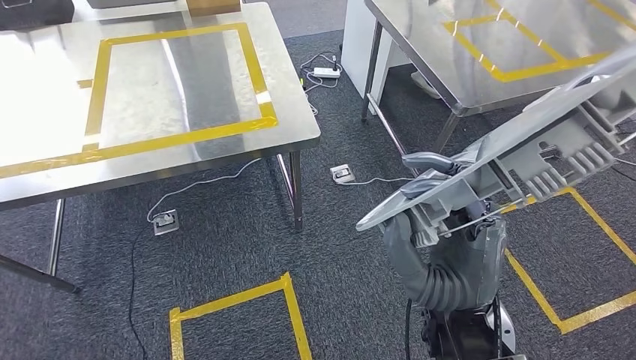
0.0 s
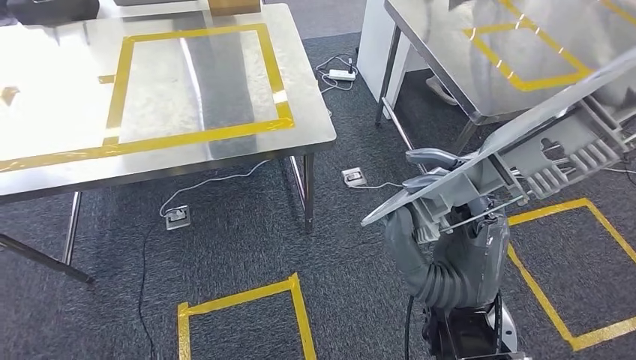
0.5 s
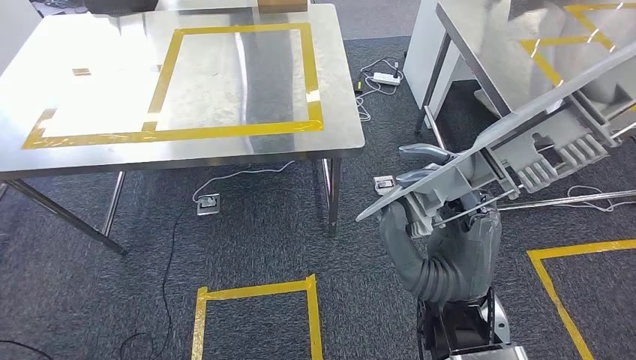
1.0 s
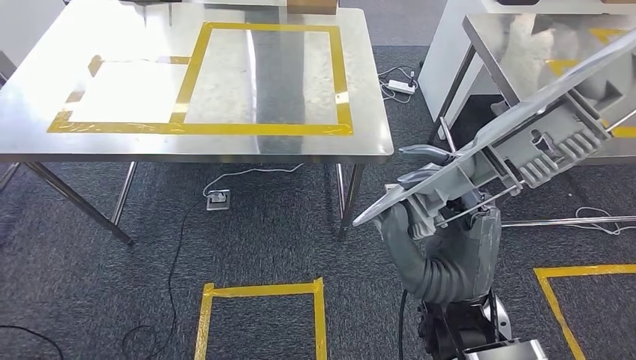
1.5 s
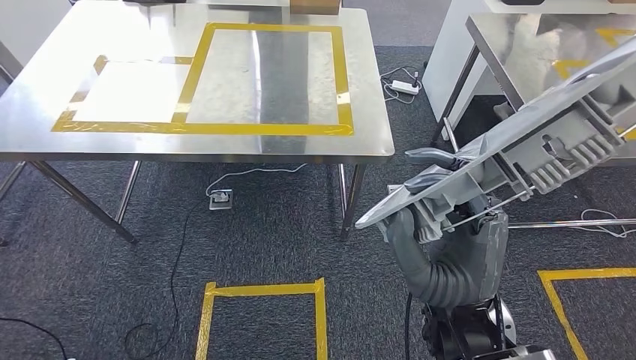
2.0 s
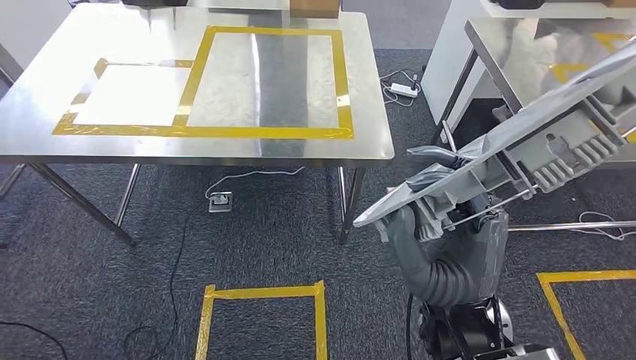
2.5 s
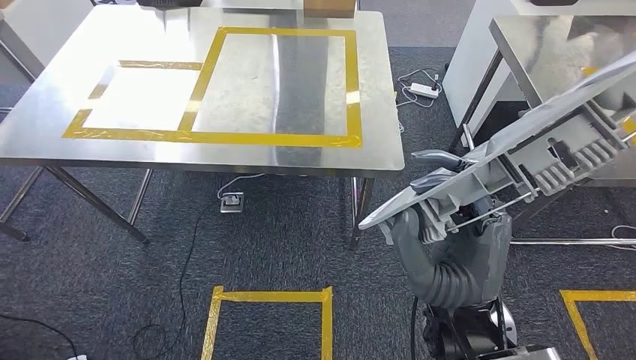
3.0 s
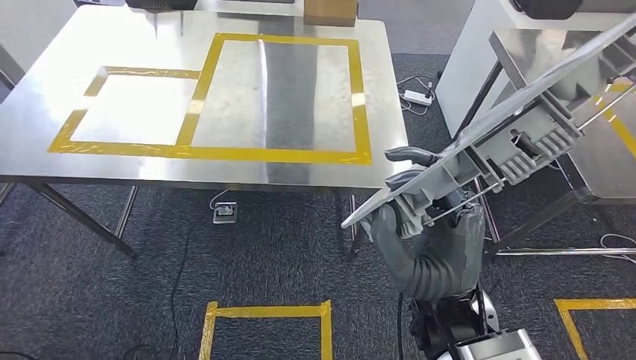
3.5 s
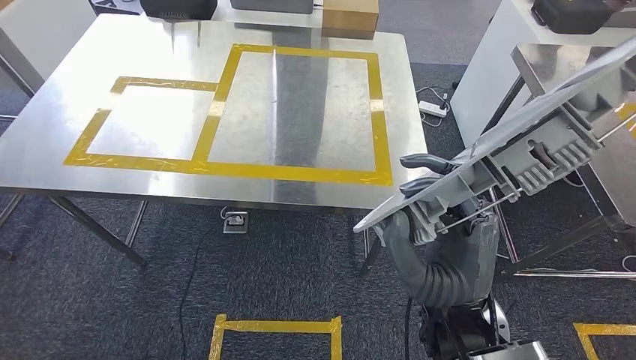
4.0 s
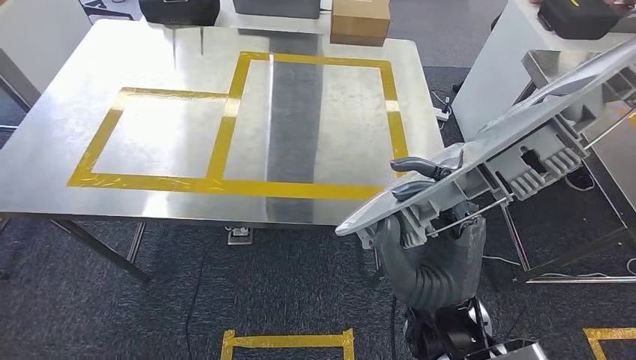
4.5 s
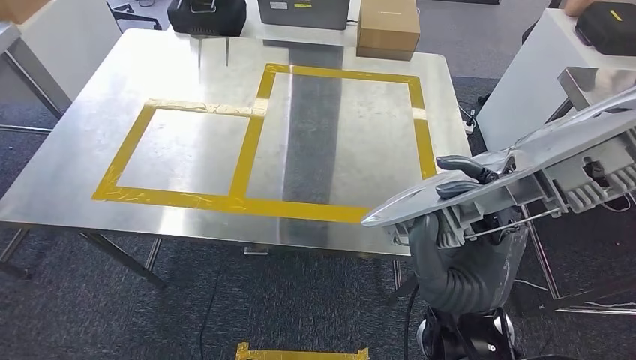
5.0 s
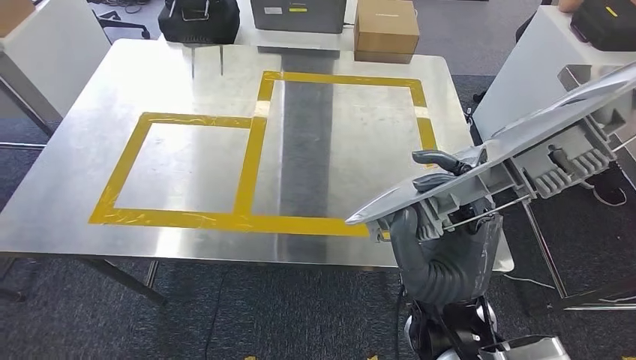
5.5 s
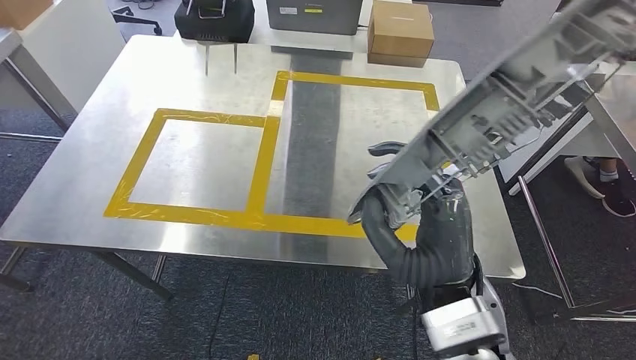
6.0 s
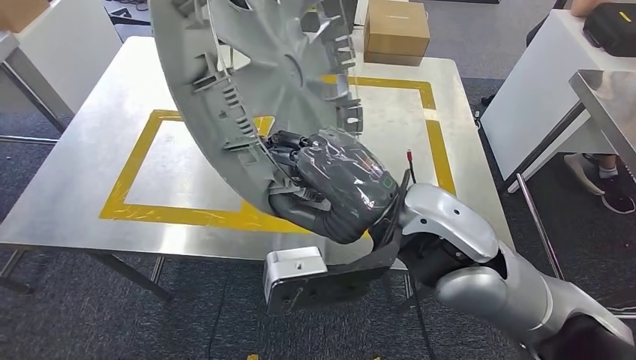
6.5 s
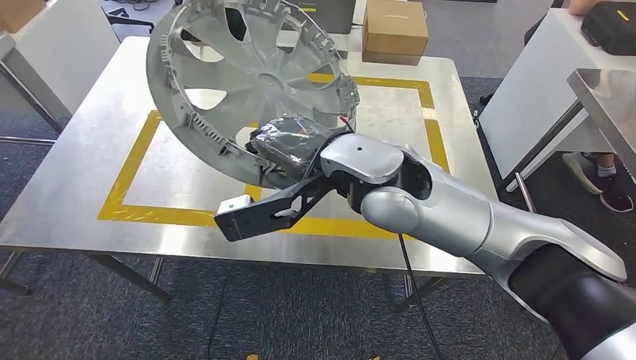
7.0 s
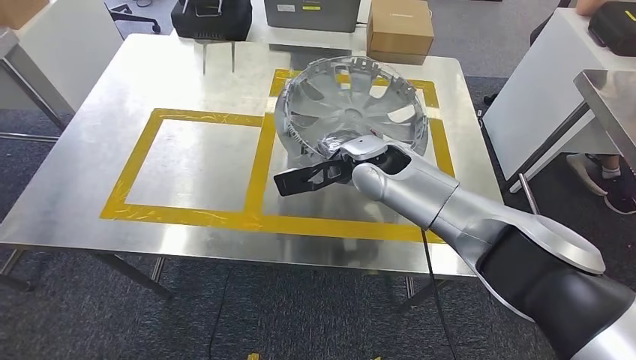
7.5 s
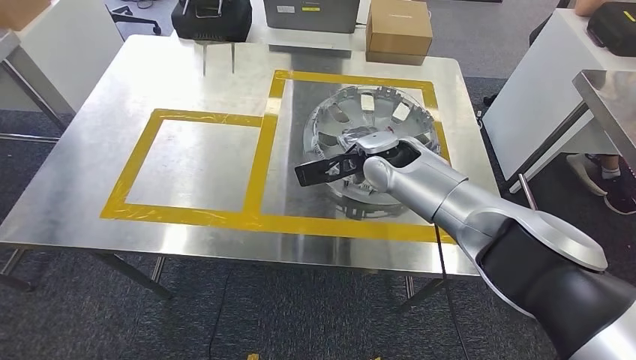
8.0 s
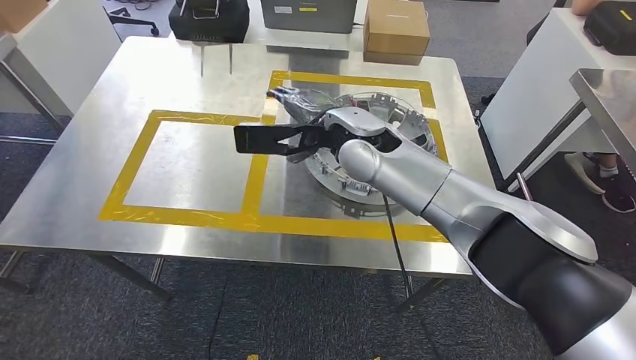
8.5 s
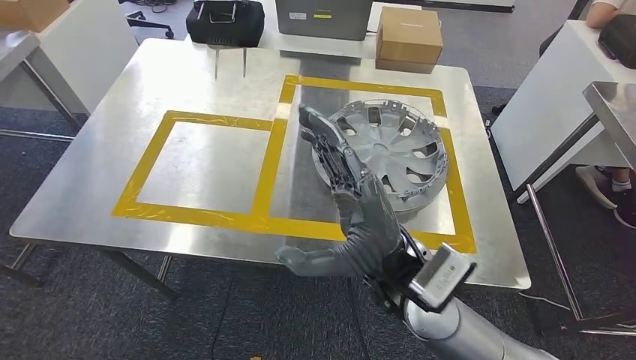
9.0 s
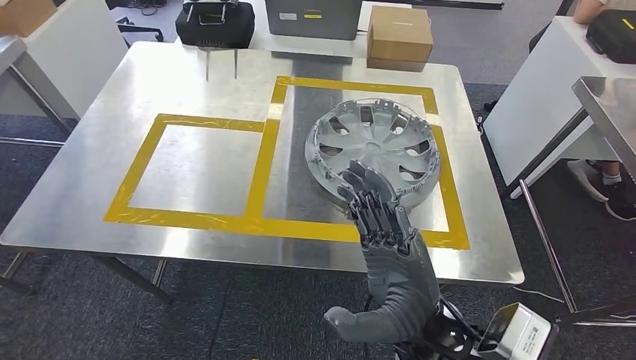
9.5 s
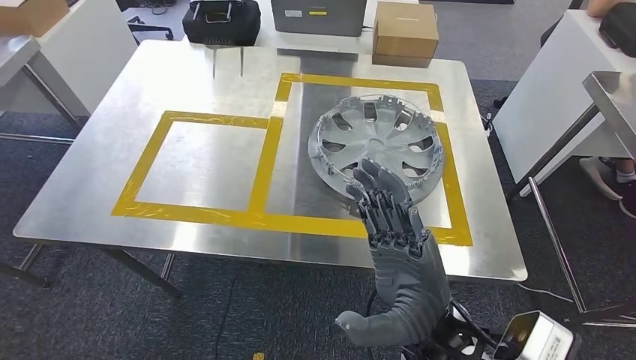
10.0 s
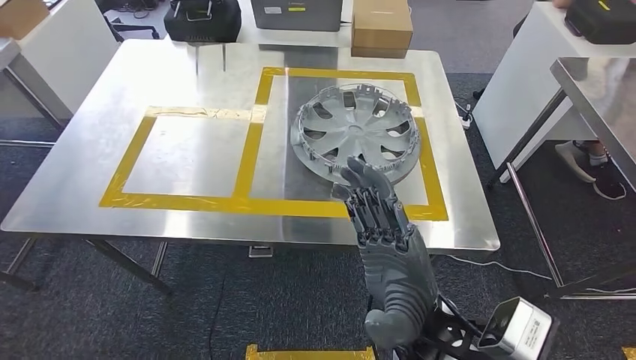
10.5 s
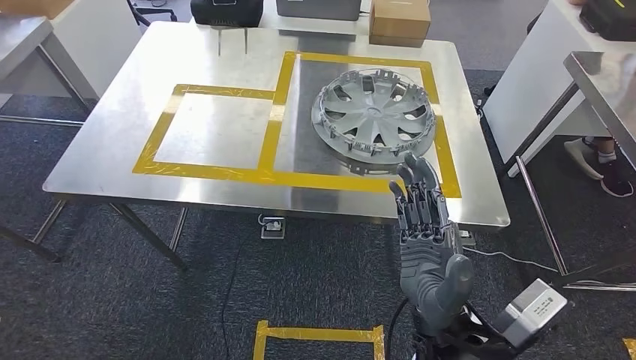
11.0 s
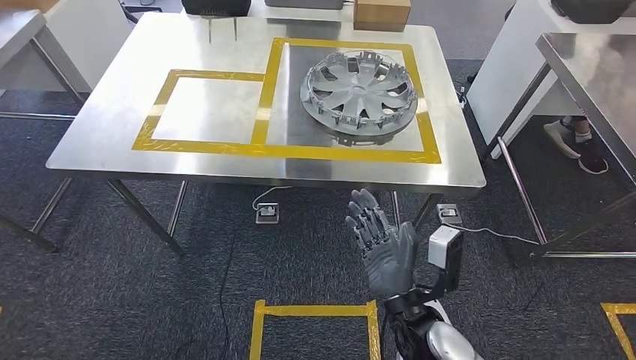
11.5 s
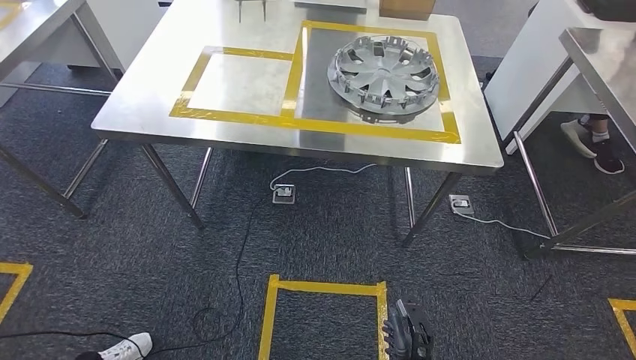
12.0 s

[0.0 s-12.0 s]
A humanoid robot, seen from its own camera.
Step, 2.0 to 9.5 s: Insert the small component into the corresponding slot on the workbench.

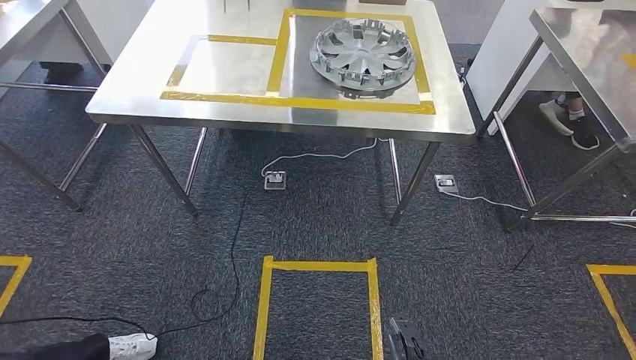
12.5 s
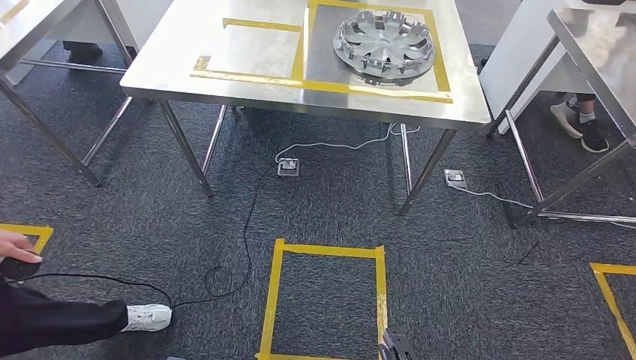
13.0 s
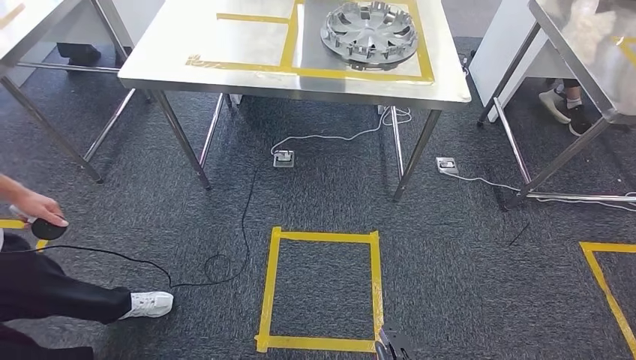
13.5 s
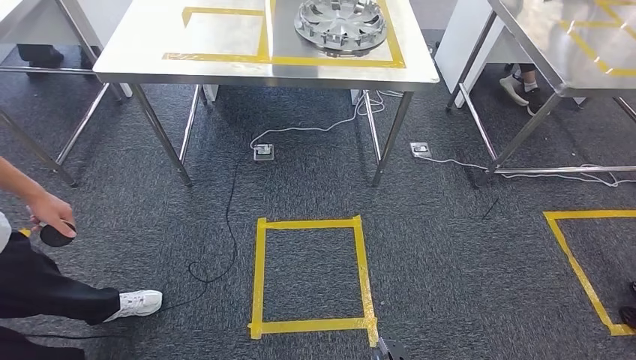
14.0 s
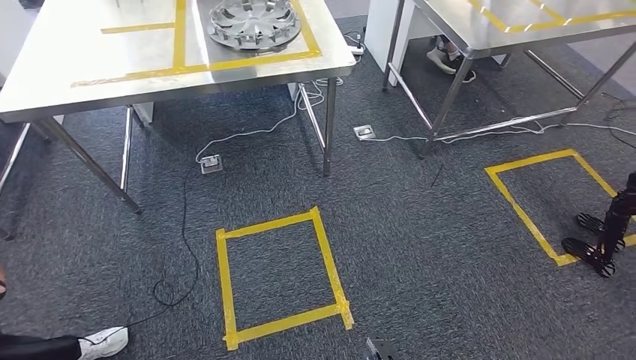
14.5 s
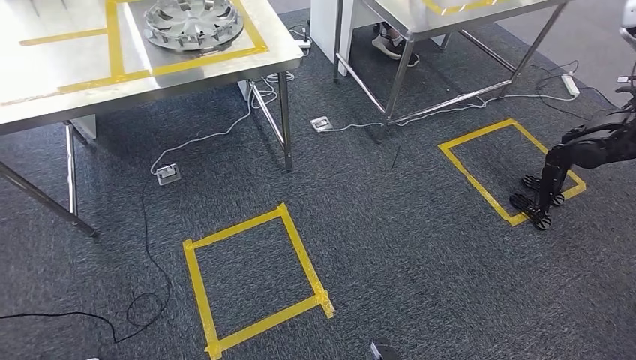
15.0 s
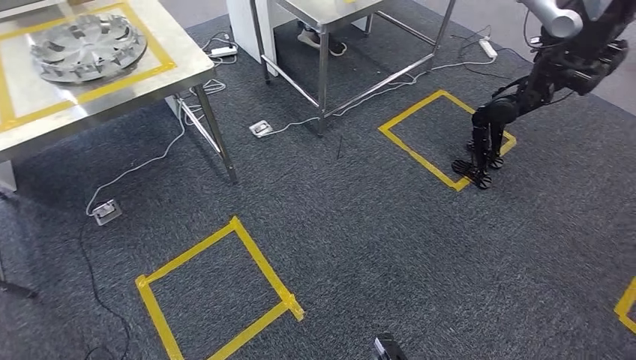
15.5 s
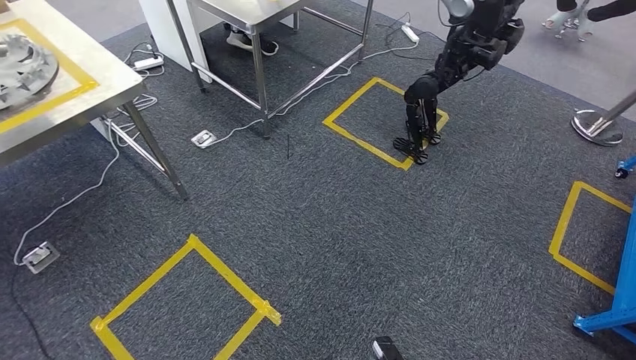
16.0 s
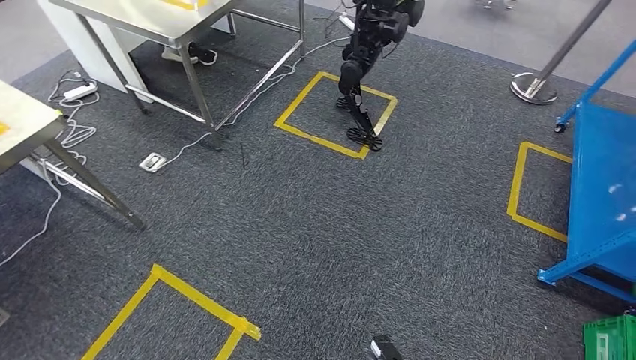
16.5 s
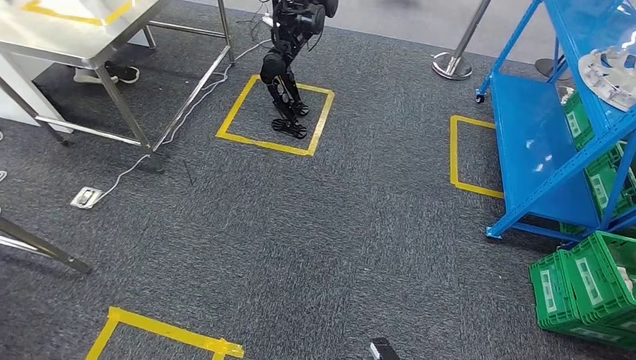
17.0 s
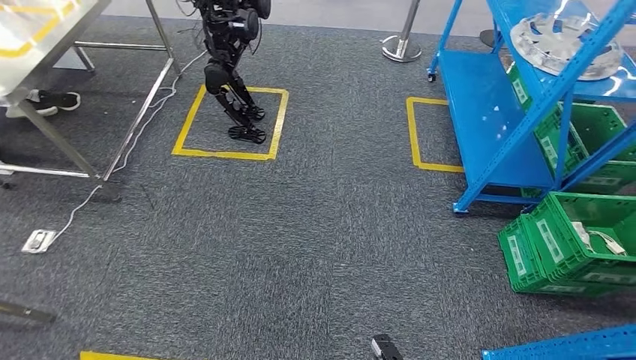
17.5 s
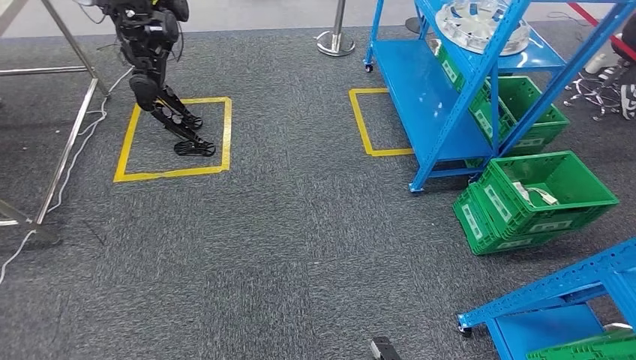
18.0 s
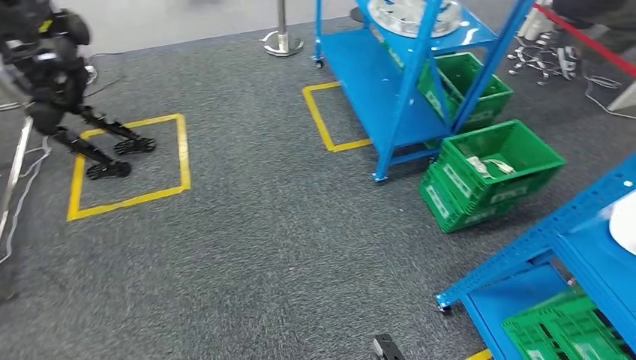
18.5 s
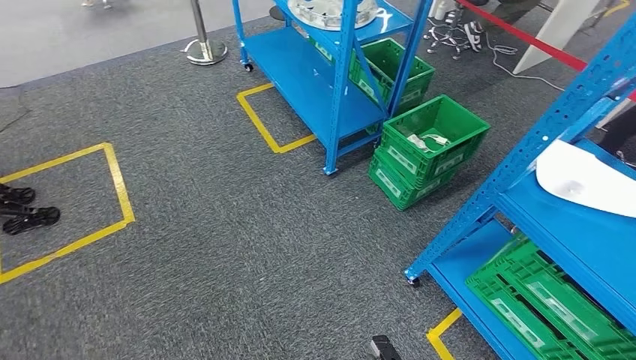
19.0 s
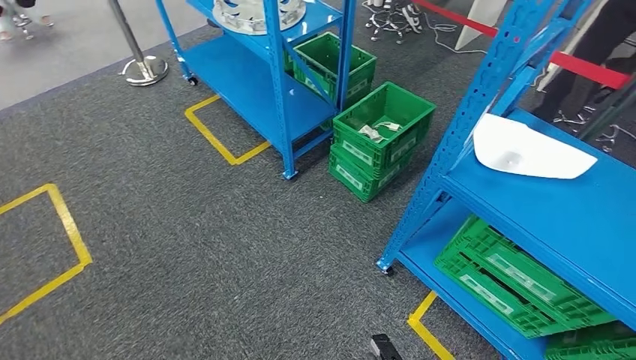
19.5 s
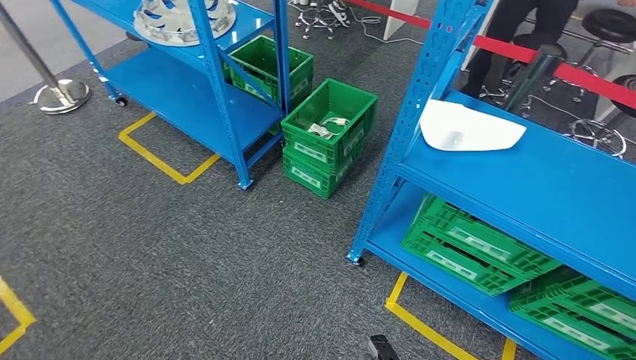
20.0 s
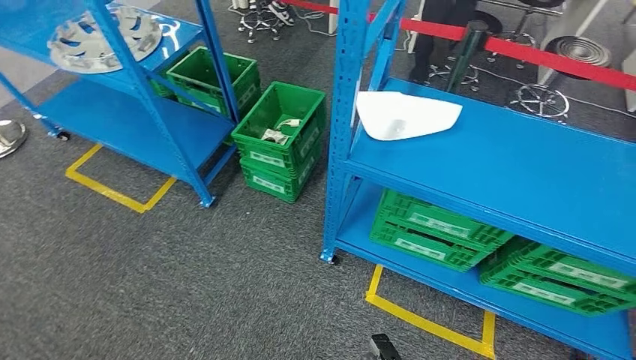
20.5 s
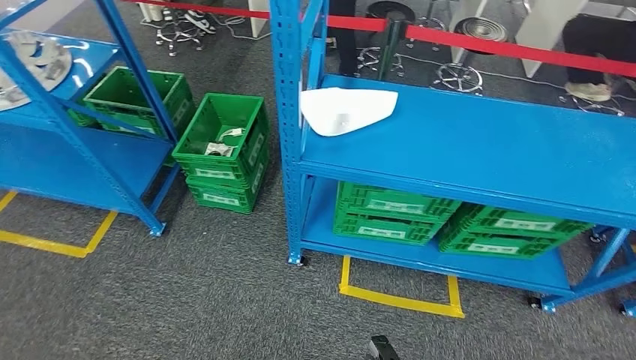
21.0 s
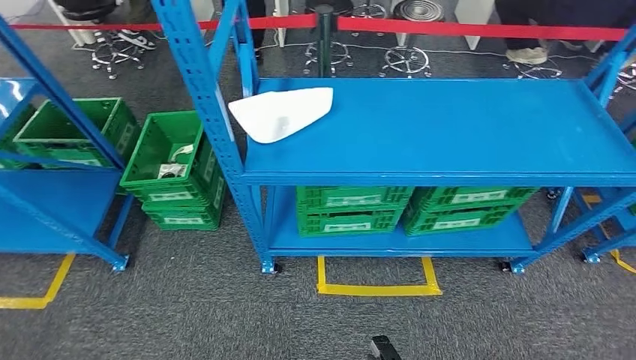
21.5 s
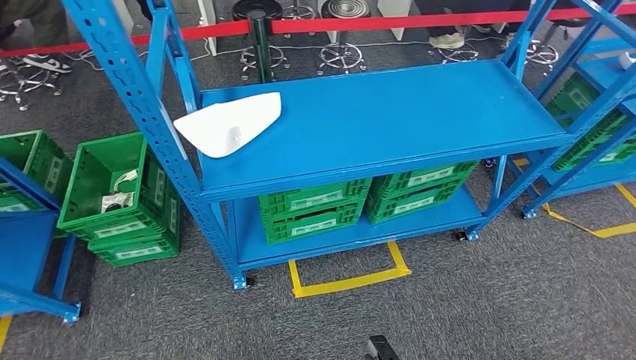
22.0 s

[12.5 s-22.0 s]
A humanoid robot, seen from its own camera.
Step, 12.5 to 22.0 s: Return to the initial position at the workbench.
